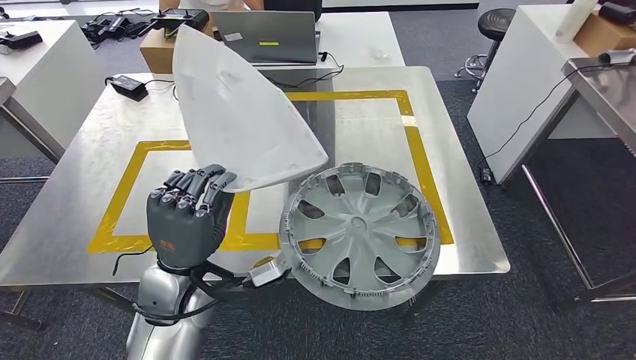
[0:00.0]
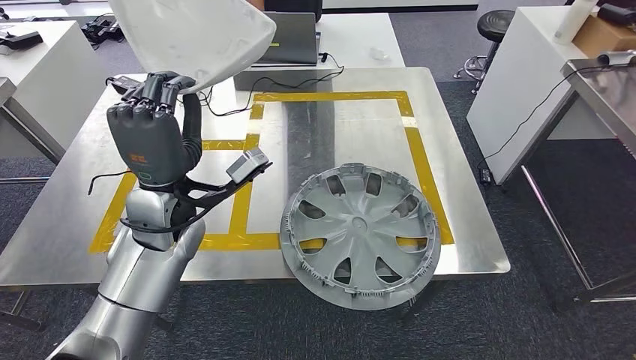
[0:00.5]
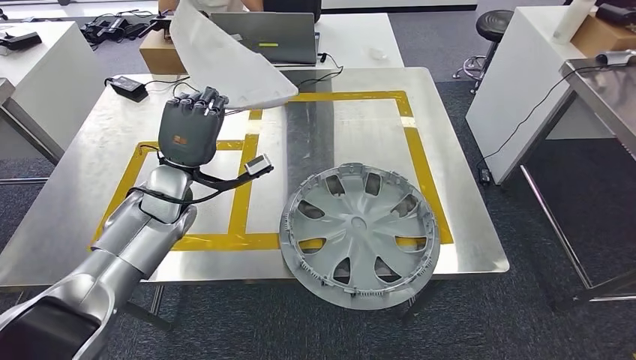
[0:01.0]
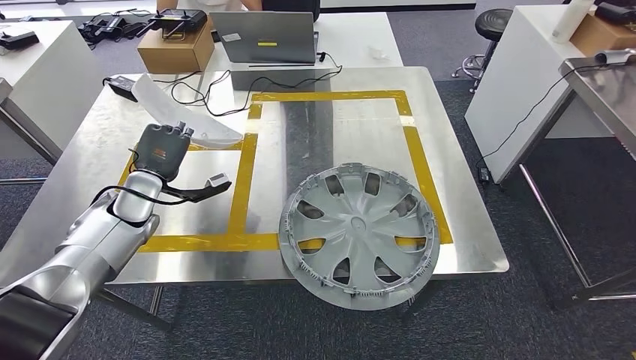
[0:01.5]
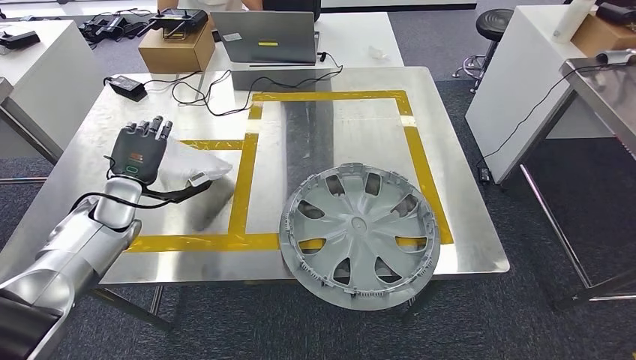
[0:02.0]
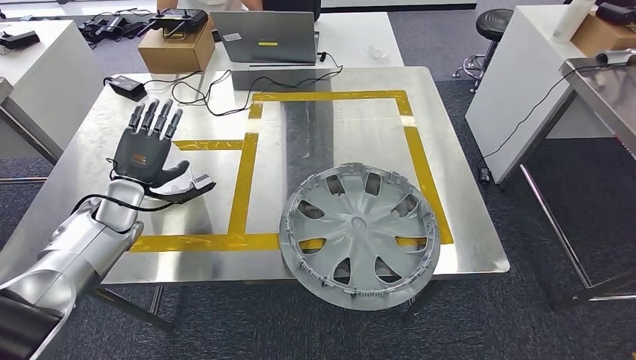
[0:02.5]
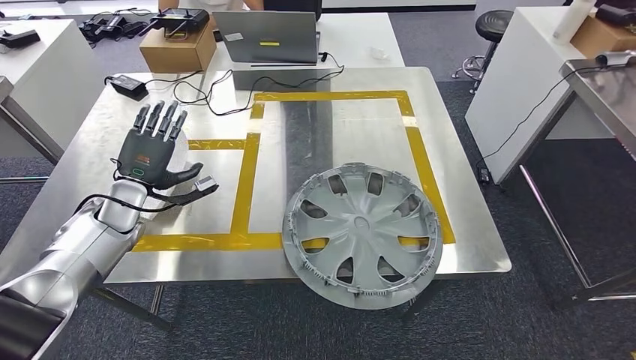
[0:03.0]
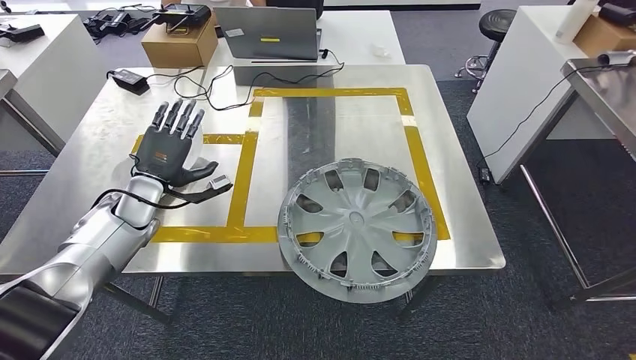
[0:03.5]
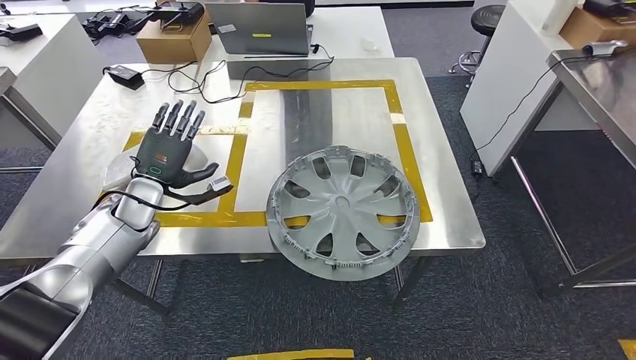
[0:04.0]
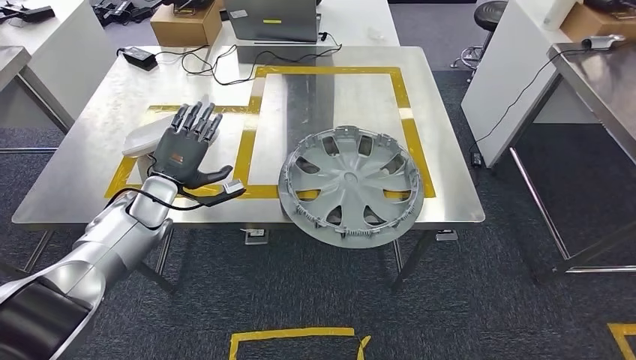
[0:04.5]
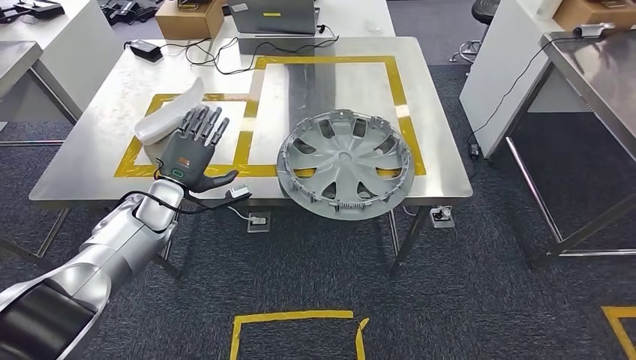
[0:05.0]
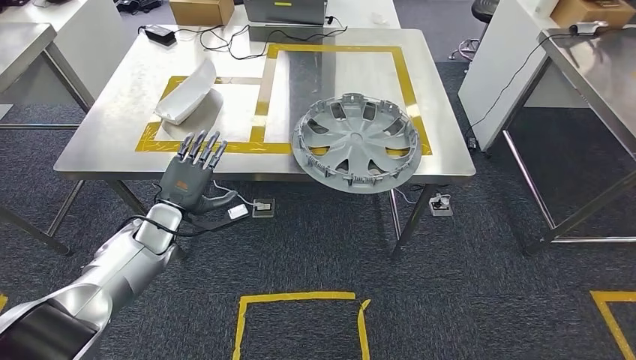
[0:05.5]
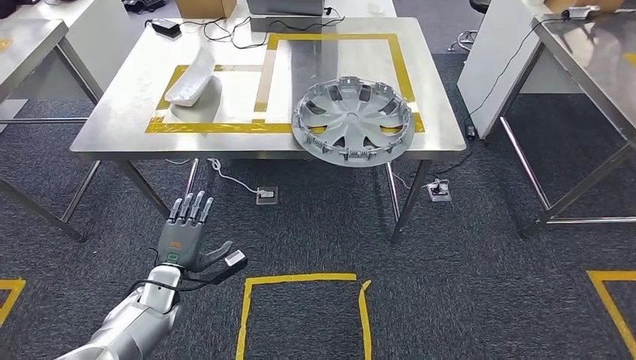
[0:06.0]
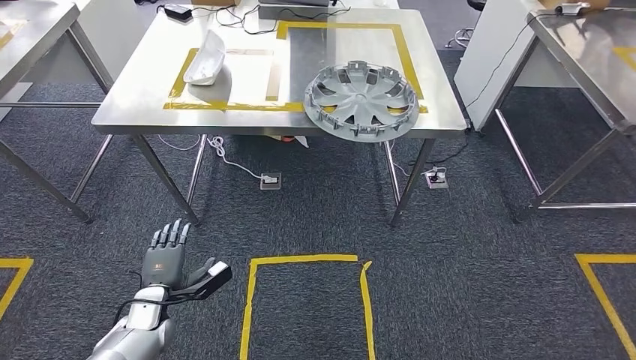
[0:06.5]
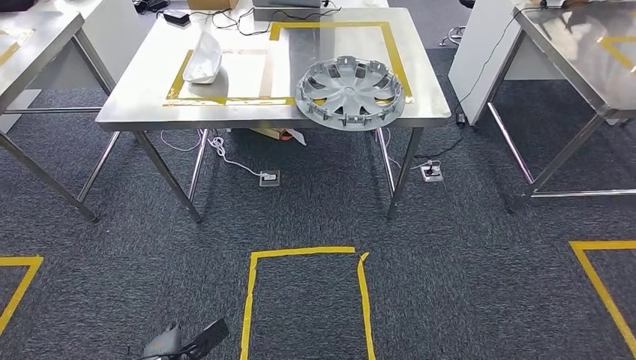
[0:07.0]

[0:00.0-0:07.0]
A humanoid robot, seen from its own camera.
Step, 0:00.0 to 0:04.5: Insert the large material into the corresponding hole on the workbench.
Step, 0:05.0 to 0:07.0: Move to the initial position of the shelf.
